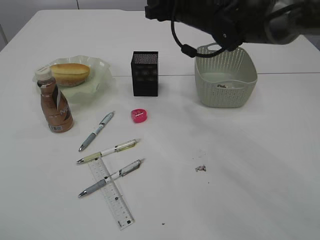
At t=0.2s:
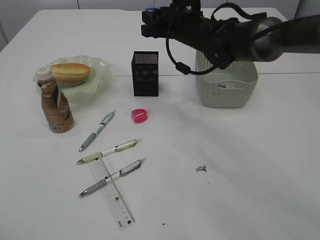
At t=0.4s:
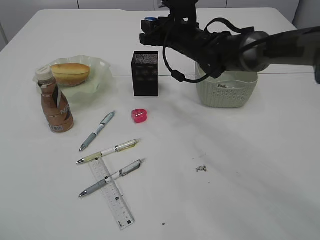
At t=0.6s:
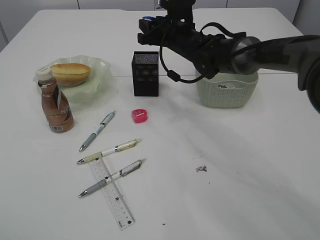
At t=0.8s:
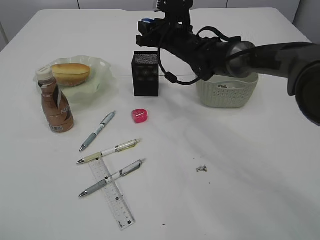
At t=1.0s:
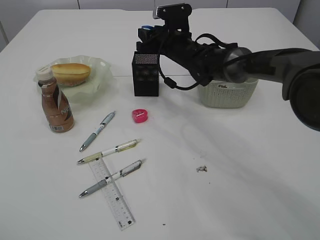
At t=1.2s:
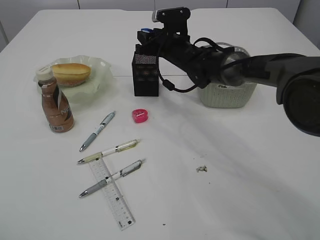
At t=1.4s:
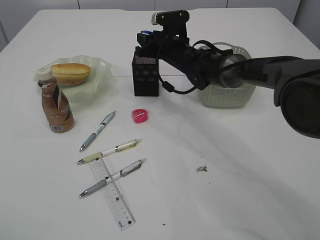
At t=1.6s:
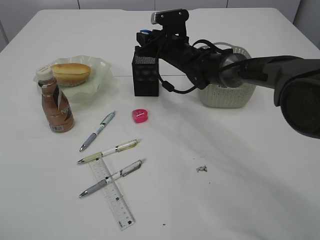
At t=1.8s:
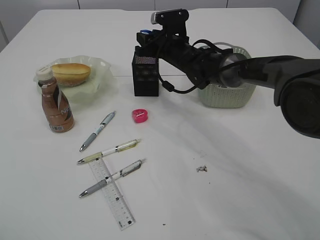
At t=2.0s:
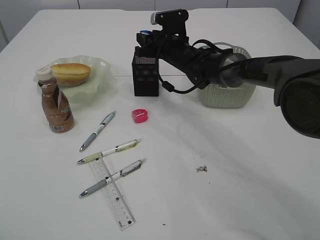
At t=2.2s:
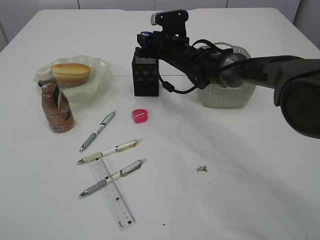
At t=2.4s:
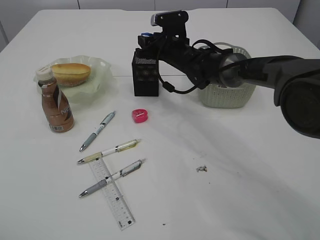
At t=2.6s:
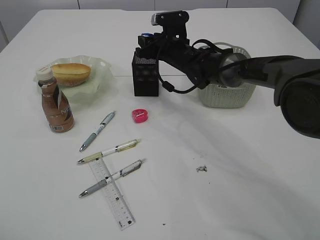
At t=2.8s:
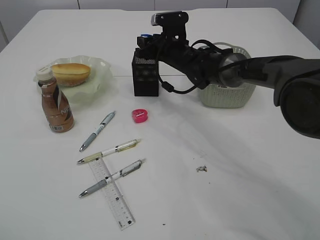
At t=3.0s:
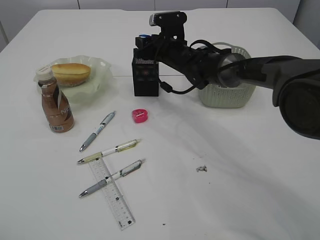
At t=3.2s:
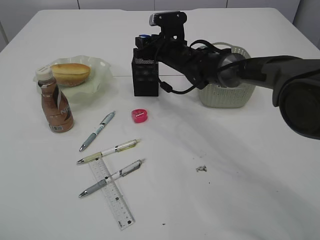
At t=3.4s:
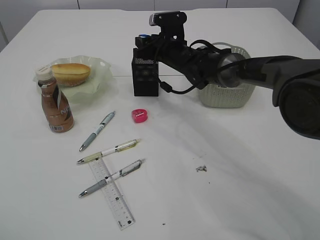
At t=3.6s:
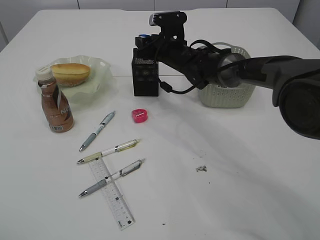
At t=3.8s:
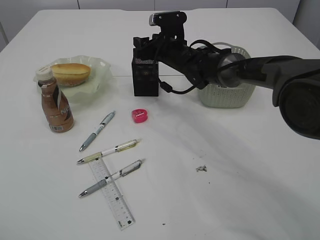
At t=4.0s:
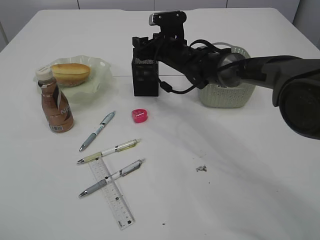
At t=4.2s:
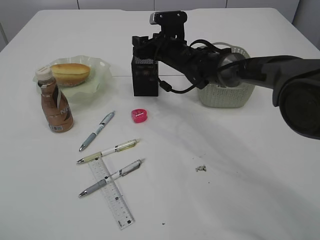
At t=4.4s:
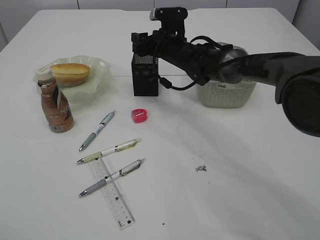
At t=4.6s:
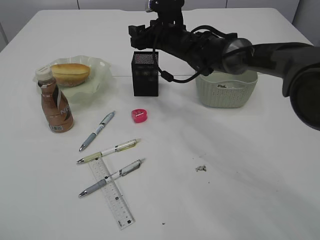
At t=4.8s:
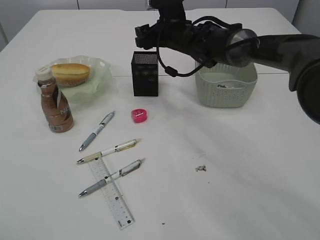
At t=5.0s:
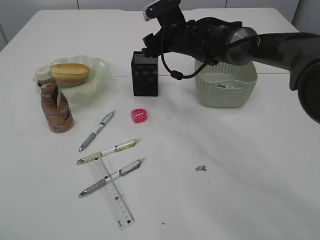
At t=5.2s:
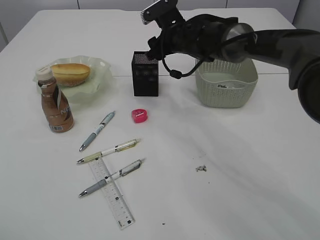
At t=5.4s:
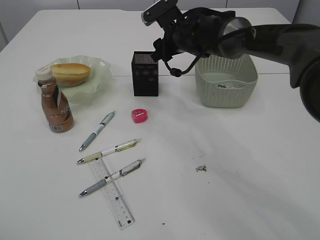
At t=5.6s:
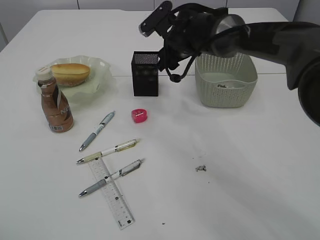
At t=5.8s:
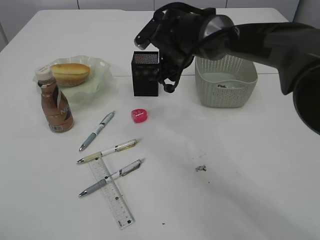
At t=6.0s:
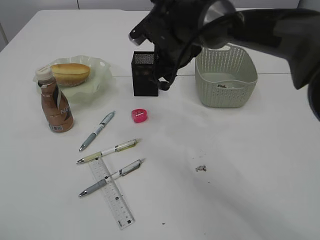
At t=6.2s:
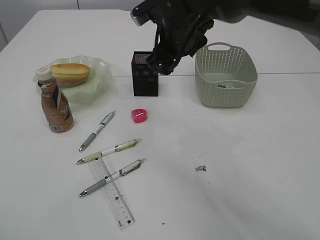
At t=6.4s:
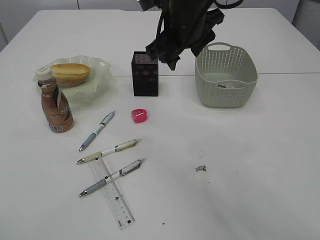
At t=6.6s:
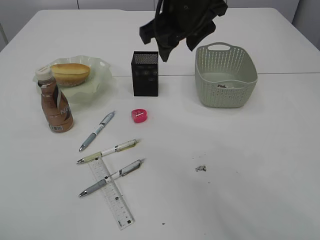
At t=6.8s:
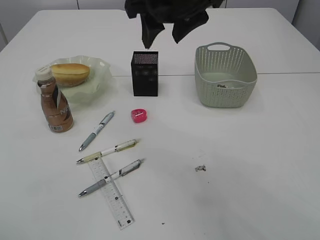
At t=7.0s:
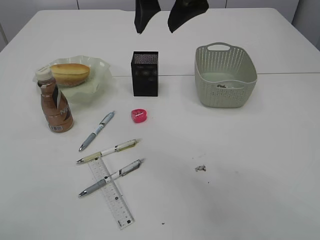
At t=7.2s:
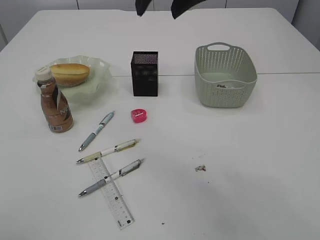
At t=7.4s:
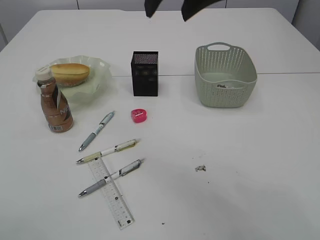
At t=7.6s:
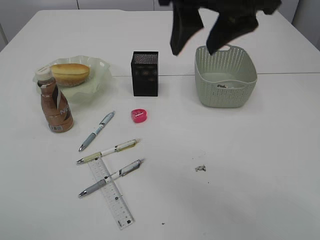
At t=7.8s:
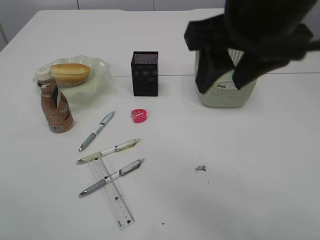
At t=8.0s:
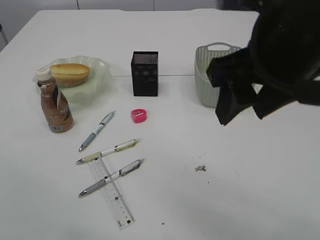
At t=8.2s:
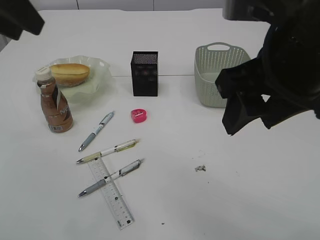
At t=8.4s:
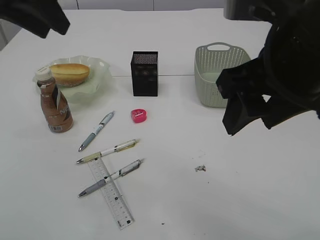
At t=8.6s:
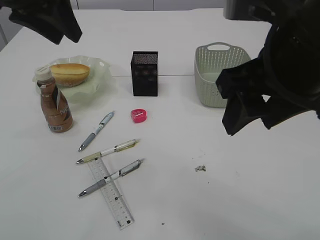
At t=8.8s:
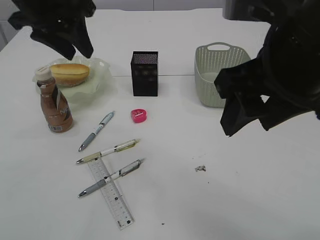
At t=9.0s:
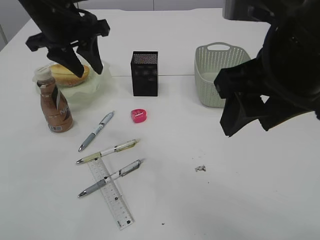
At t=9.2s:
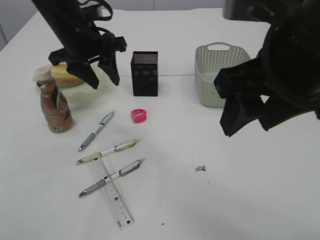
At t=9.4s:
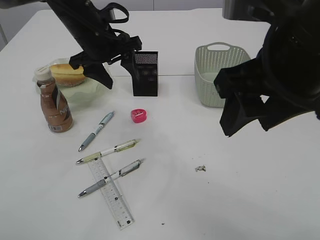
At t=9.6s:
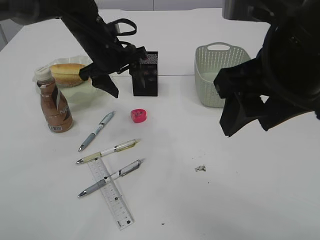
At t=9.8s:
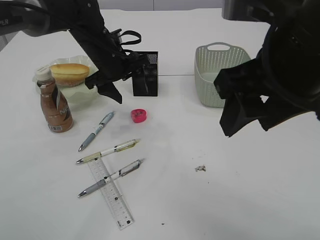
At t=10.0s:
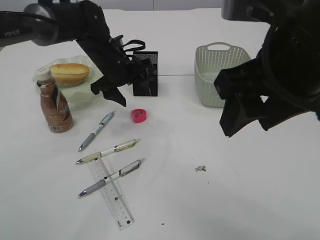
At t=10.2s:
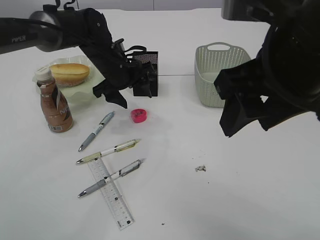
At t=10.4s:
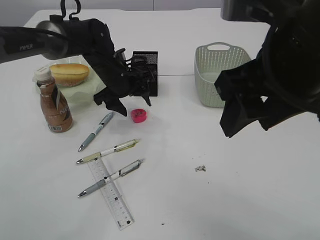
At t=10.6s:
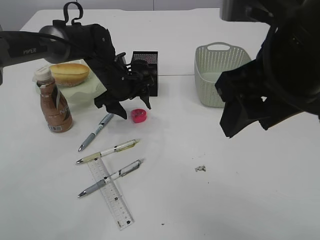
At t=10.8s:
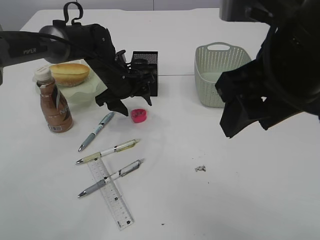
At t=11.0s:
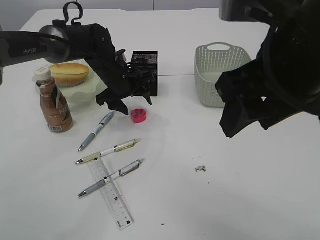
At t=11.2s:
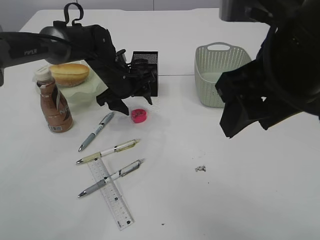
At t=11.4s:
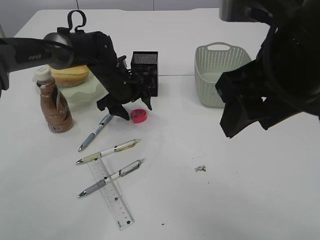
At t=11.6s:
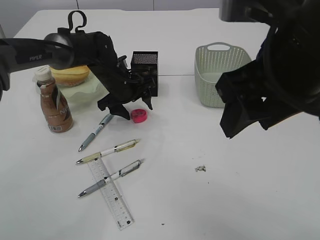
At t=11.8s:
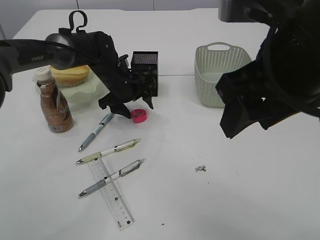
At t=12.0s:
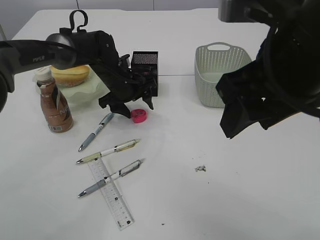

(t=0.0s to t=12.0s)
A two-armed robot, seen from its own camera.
Step, t=0.0s - t=5.0s: Place the blue pencil sharpener into the pen holder.
t=0.0s - t=1.6s: The right gripper goes roughly 10 cm downward and forward.
t=1.6s - t=3.0s: The two grippers keep their place.
t=3.0s - t=4.4s: Both grippers stay put.
t=4.4s - t=6.0s: The right gripper travels backward and upward by approximately 10 cm.
t=6.0s - t=7.6s: The right gripper is displaced upward and backward by some 25 cm.
t=7.6s - t=9.0s: The left gripper goes roughly 25 cm forward, to the right and downward; the right gripper moves backward and downward, about 10 cm.
t=9.0s - t=10.4s: The left gripper heads downward and forward, covering some 20 cm, and opens its fingers.
t=10.4s - t=12.0s: The grippers make only small movements.

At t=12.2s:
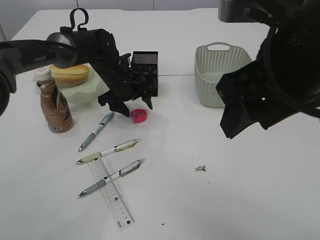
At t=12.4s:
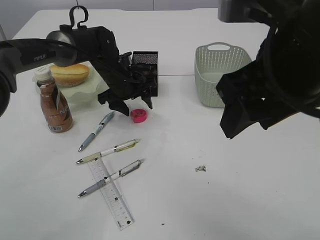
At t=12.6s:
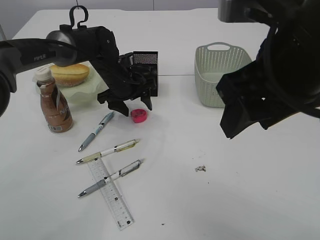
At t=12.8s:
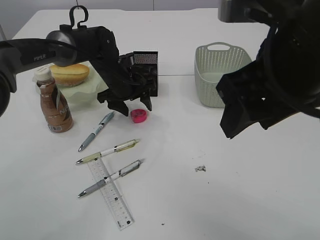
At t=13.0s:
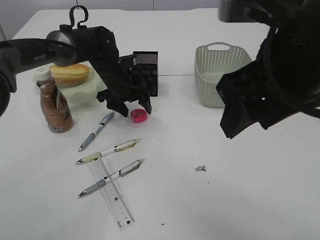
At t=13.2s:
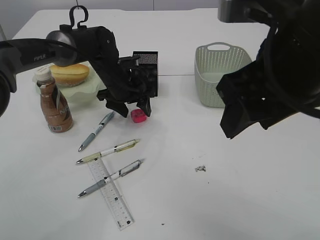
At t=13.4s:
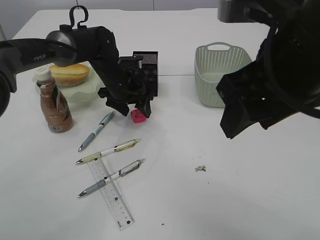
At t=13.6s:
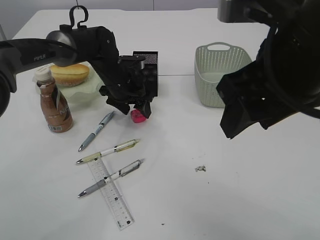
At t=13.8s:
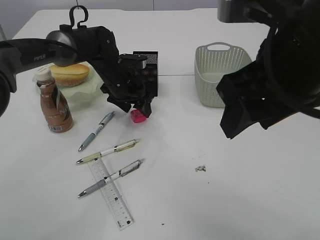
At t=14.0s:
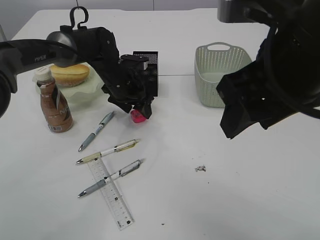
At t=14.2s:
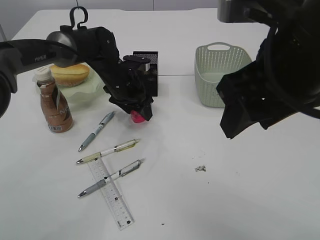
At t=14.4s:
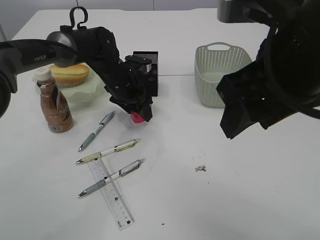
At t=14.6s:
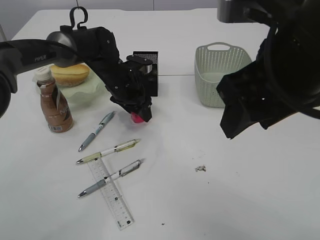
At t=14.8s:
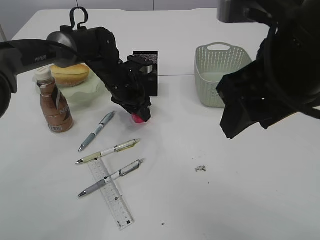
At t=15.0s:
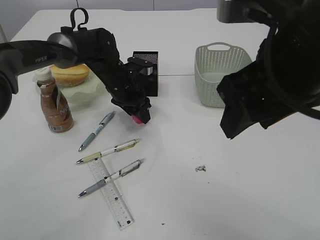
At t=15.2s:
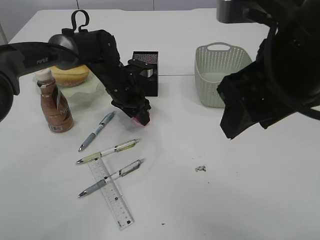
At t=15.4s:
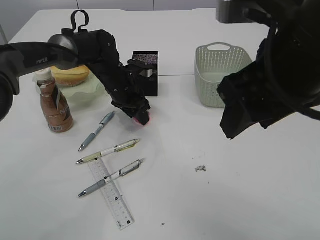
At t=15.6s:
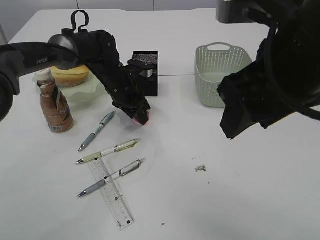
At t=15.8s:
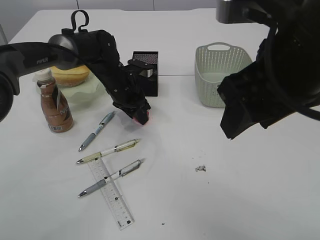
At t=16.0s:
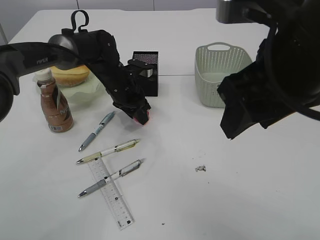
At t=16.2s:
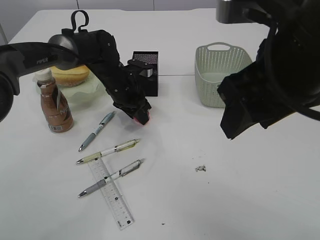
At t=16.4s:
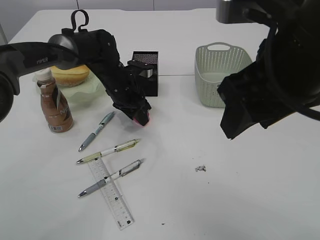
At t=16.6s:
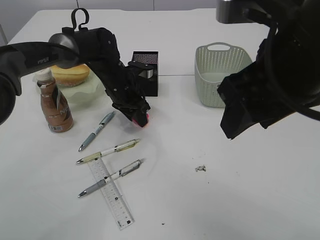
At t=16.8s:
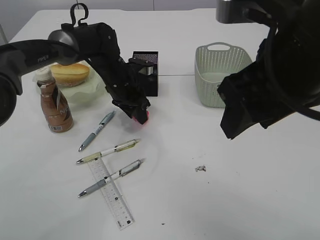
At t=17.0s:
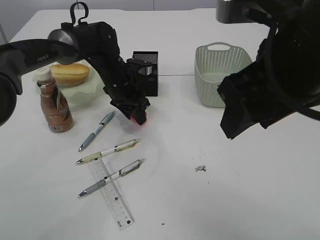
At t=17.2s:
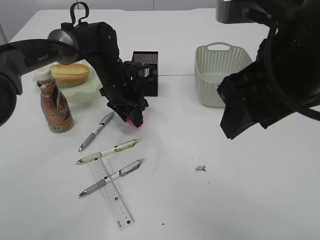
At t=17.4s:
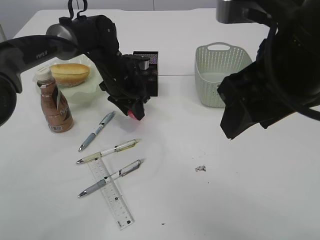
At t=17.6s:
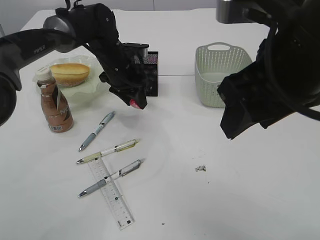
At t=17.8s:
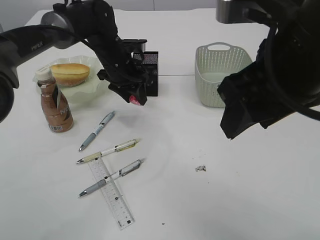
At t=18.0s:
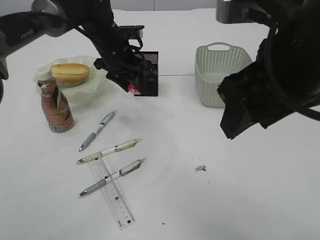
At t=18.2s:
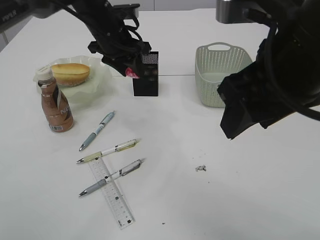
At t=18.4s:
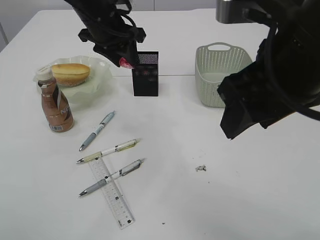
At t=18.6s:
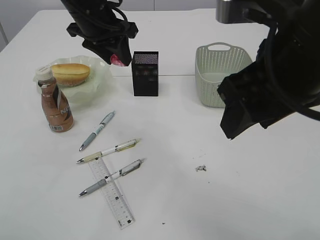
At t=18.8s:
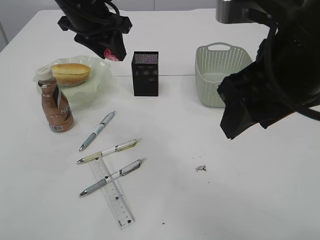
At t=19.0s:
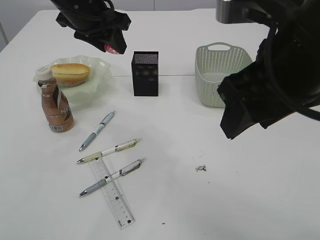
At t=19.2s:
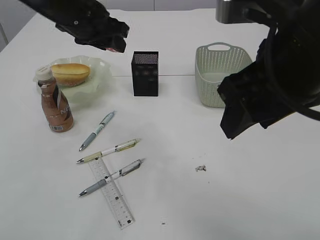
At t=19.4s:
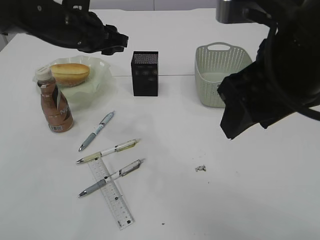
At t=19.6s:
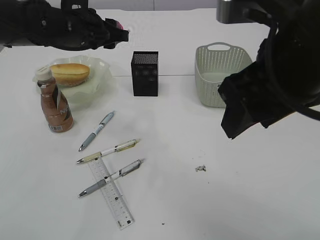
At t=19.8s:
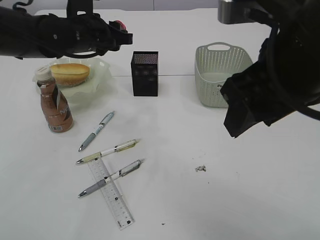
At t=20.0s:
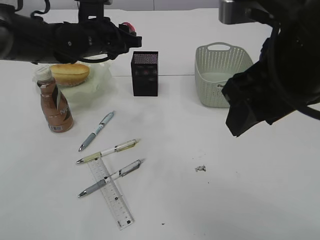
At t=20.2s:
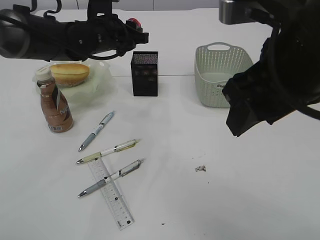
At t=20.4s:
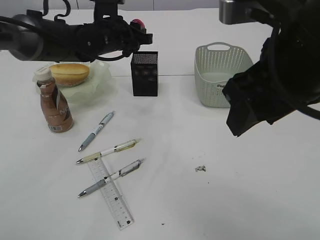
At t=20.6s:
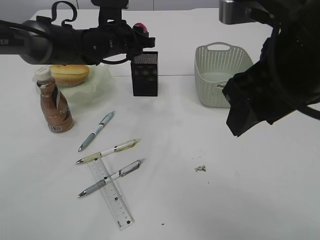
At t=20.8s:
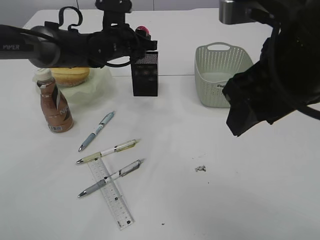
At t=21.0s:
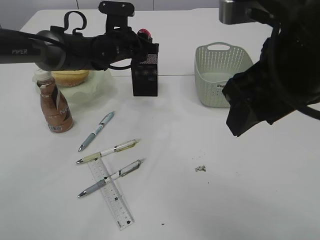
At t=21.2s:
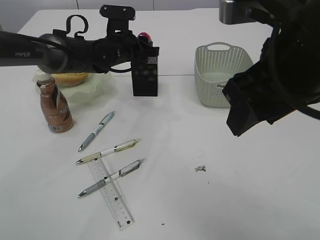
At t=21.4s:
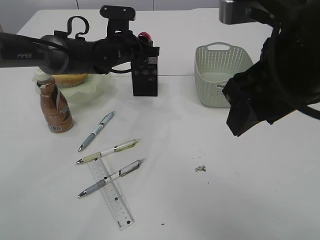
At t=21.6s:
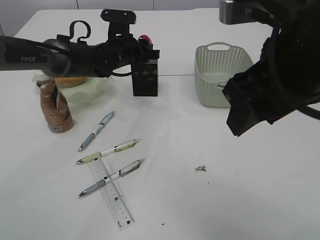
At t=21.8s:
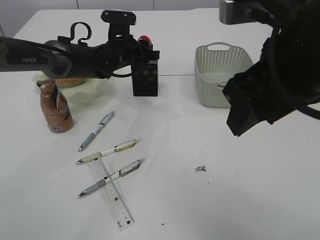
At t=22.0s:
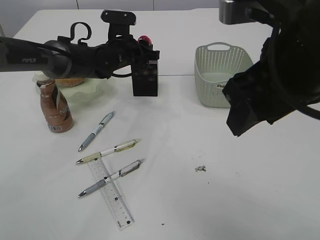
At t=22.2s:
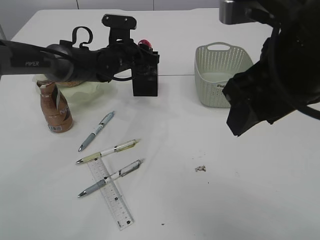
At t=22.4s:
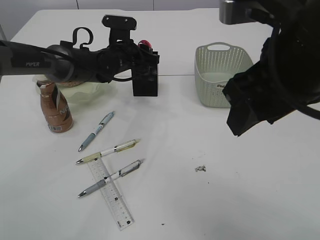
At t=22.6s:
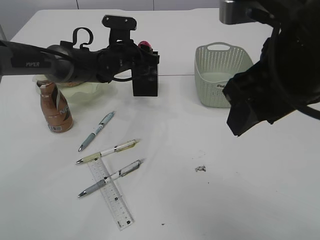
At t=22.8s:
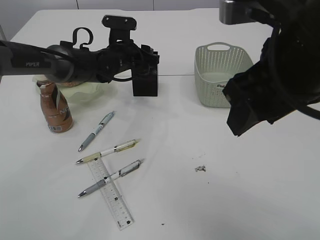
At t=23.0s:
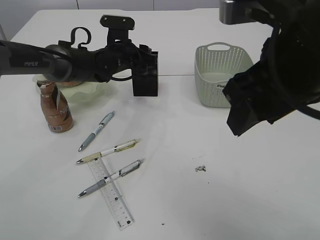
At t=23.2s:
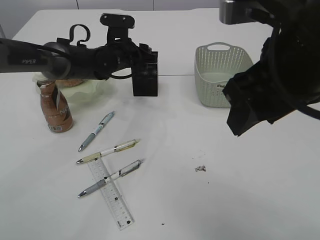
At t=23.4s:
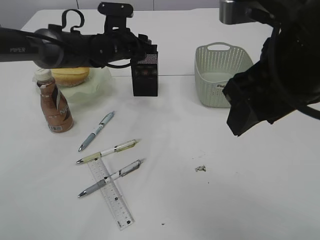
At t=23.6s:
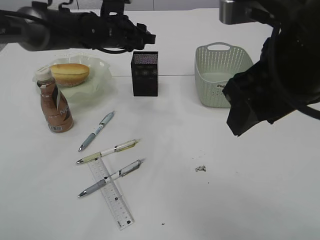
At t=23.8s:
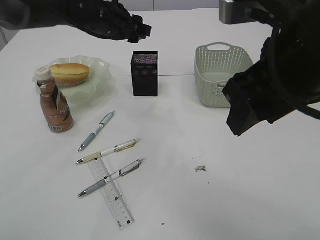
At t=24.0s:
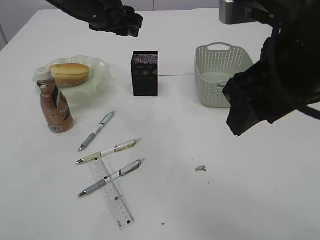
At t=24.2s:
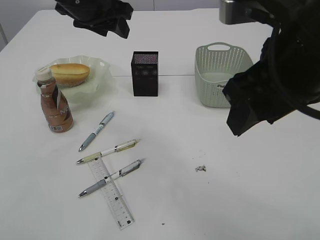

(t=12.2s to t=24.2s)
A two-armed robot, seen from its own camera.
Step, t=12.2s - t=18.0s: Pick up the red pencil sharpener.
Step, t=18.2s - t=23.4s: Place the red pencil sharpener into the pen holder.
t=13.8s - t=15.2s: There are only small adjustments of the grippers.
t=15.2s - t=16.6s: Neither gripper changes place.
t=16.6s - t=18.2s: The left gripper travels upward by roughly 10 cm.
t=18.2s - t=19.8s: The left gripper travels upward and back again, some 10 cm each way.
t=19.8s - t=21.2s: The left gripper shifts some 10 cm forward and downward.
t=21.2s - t=22.6s: There are only small adjustments of the grippers.
t=22.6s - t=24.2s: The left gripper goes roughly 20 cm upward and backward.
